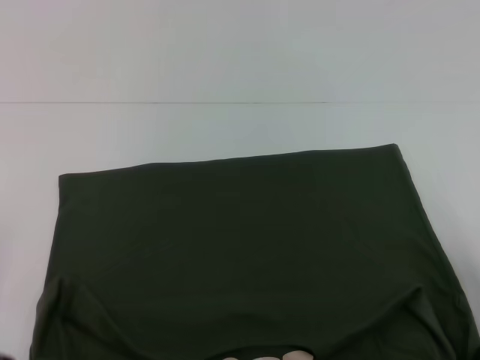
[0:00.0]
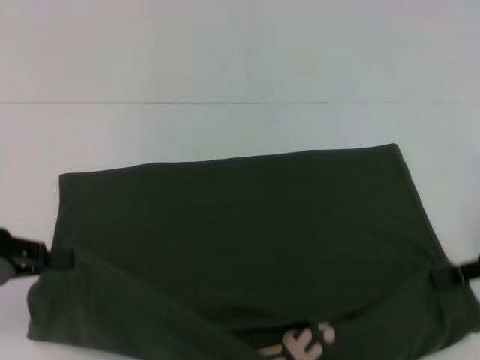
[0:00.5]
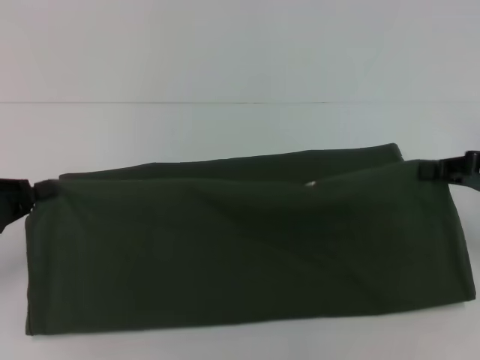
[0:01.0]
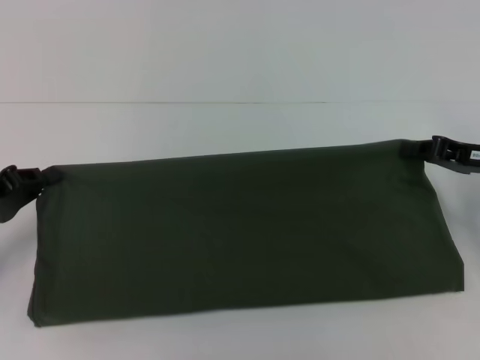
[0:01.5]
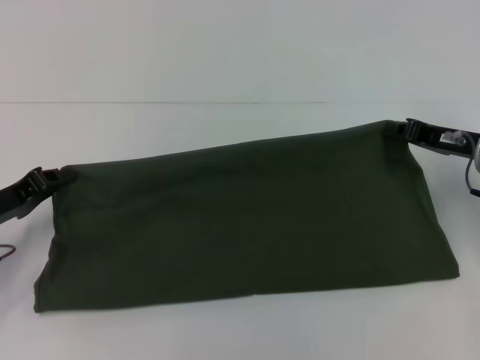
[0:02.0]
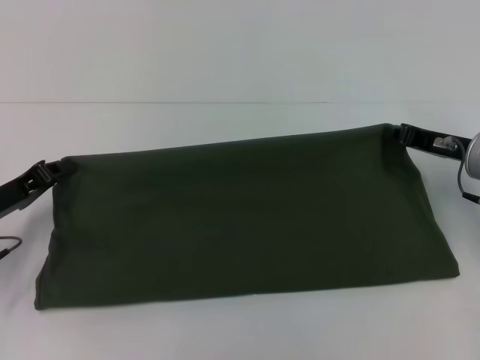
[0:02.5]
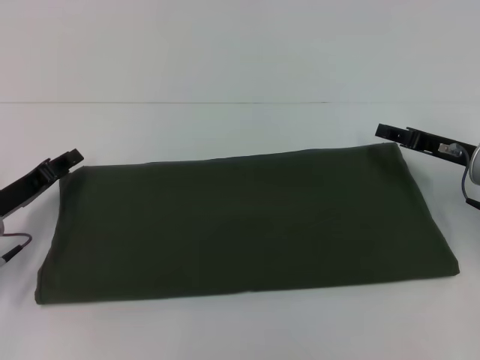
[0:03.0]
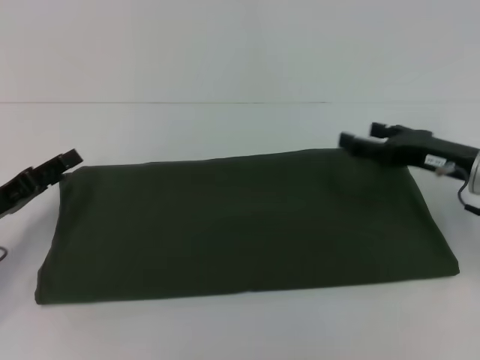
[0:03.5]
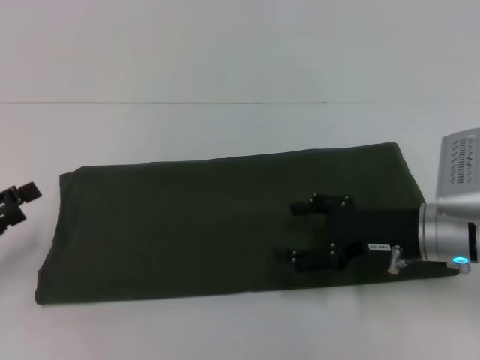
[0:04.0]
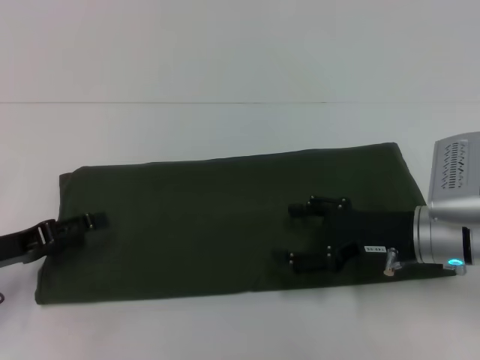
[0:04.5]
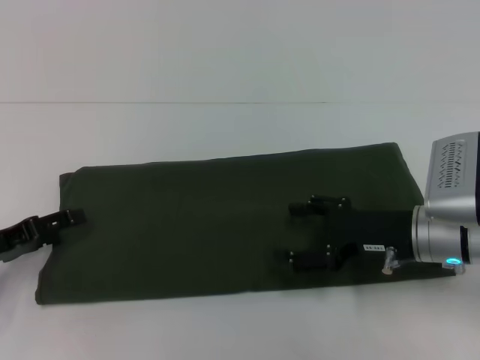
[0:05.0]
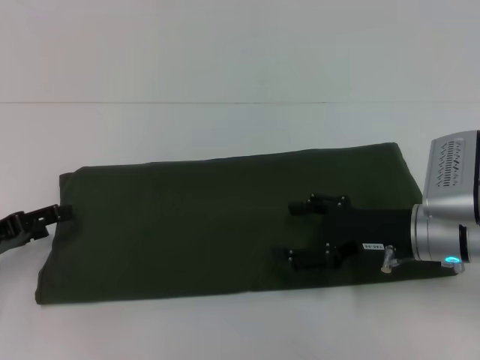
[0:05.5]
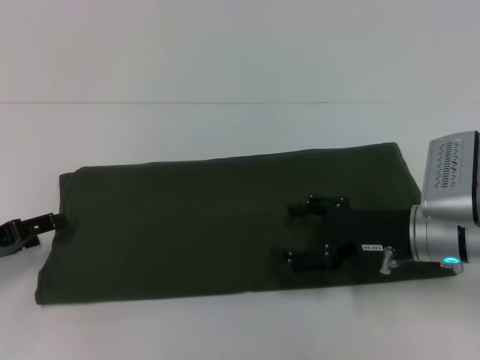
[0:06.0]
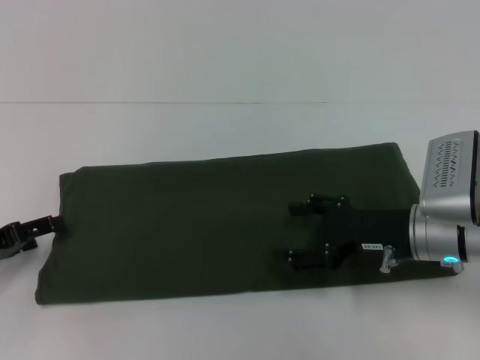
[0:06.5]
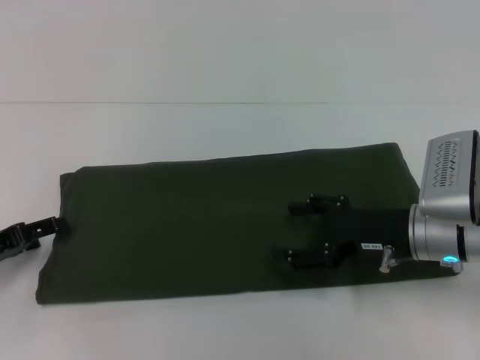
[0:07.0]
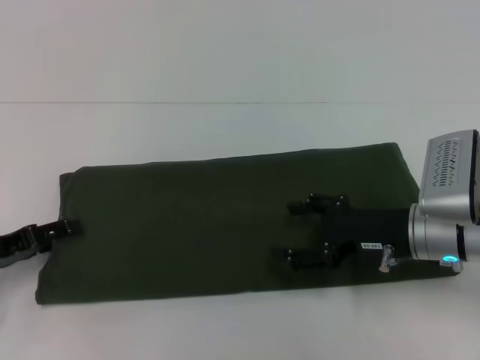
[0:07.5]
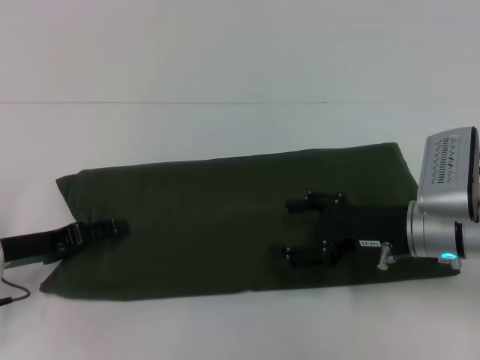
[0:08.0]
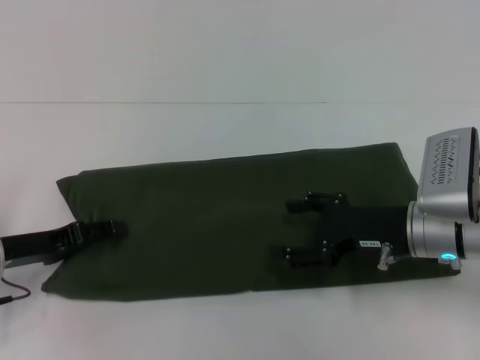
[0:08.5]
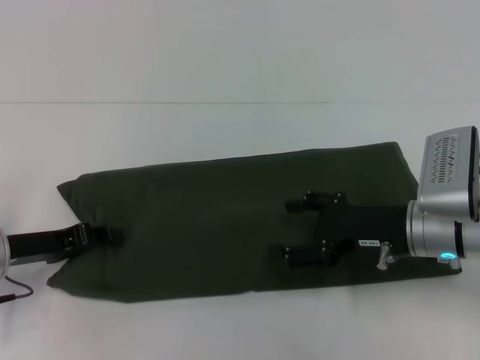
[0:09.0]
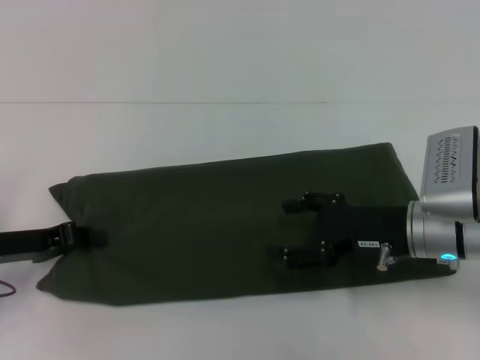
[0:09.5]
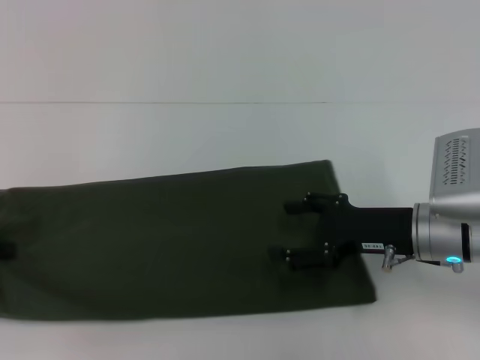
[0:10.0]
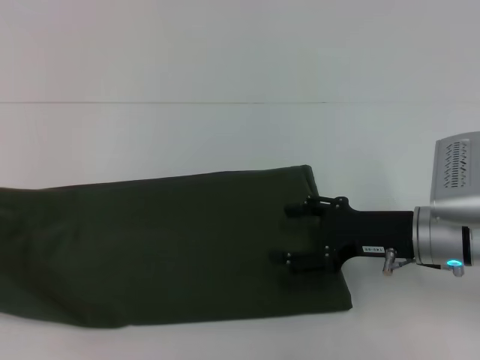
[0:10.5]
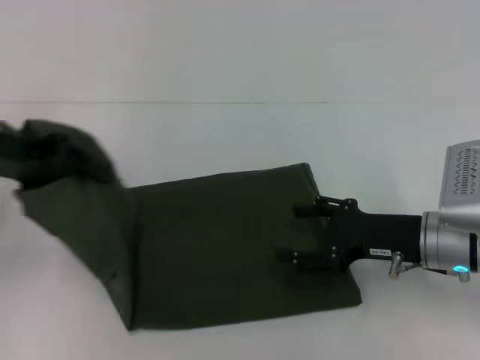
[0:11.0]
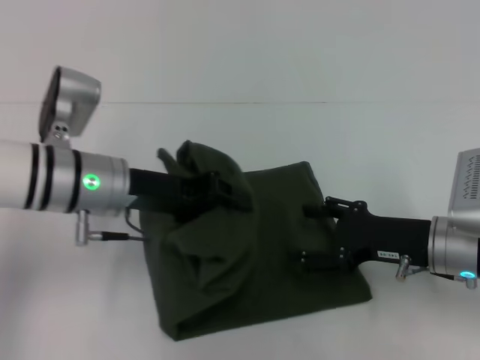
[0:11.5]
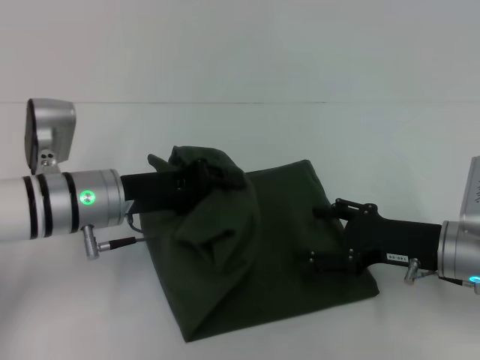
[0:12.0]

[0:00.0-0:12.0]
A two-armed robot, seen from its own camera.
Step, 0:00.0 to 0:03.0: Fold the clothes with your right hand.
0:00.0 to 0:02.0: The left gripper is displaced forward and downward by roughly 10 cm. Meanwhile the right gripper travels forward by some 10 cm.
0:02.0 to 0:04.0: The right gripper travels to the left and backward by some 10 cm, and opens up, while the left gripper heads backward, covering approximately 5 cm, and opens up.
0:04.0 to 0:06.0: There are only small adjustments of the grippers.
0:06.0 to 0:08.0: The left gripper travels to the right by about 5 cm.
0:08.0 to 0:10.0: The left gripper goes some 10 cm to the left and upward, and closes.
0:10.0 to 0:12.0: The left gripper goes some 20 cm to the right.

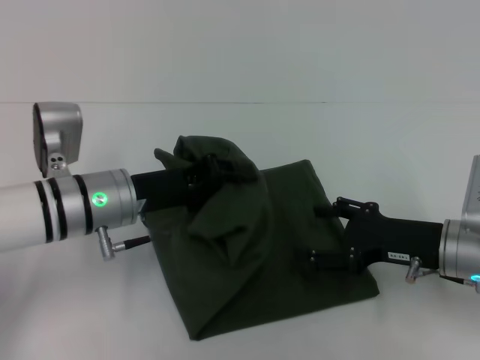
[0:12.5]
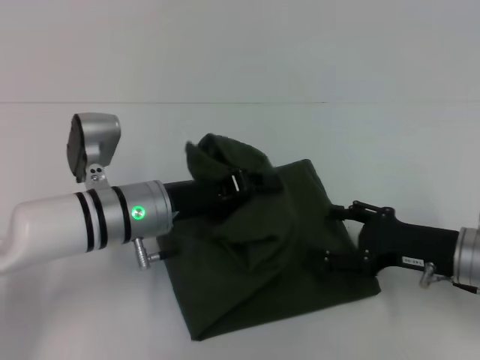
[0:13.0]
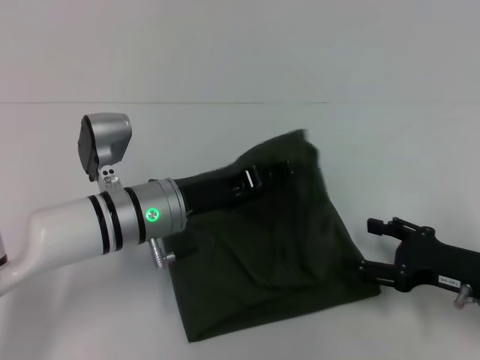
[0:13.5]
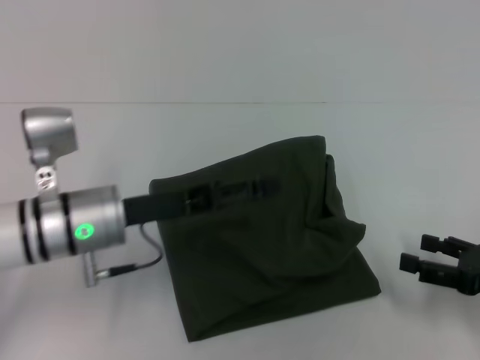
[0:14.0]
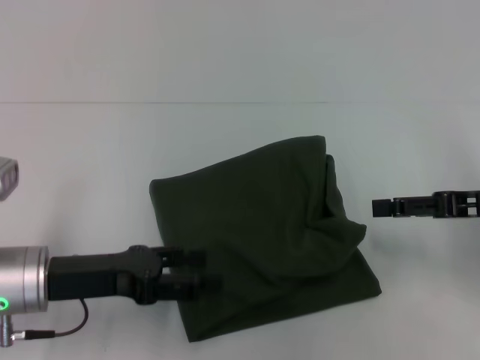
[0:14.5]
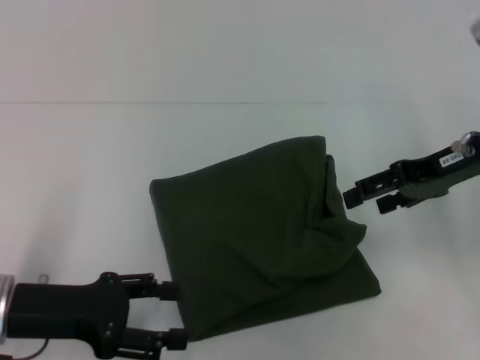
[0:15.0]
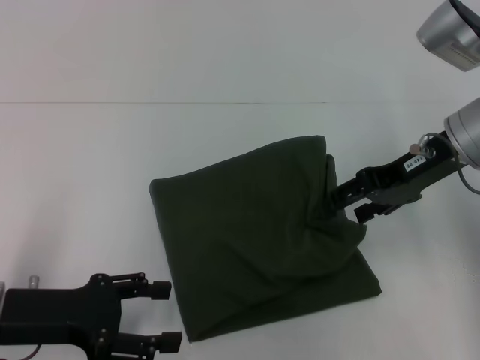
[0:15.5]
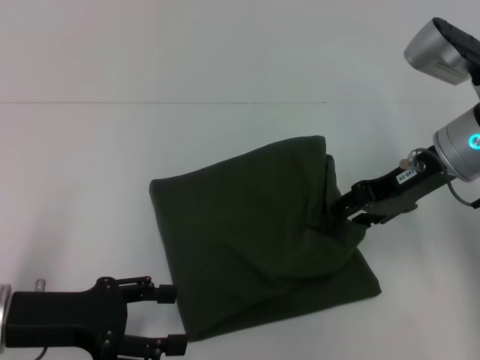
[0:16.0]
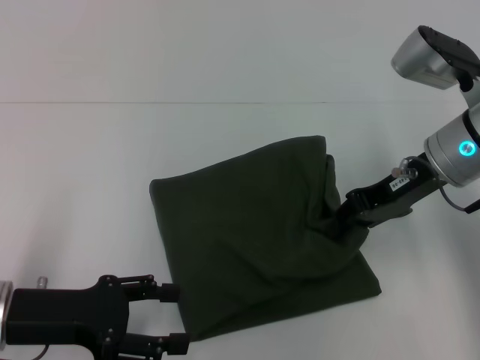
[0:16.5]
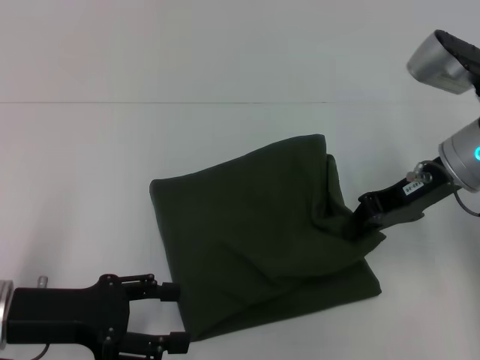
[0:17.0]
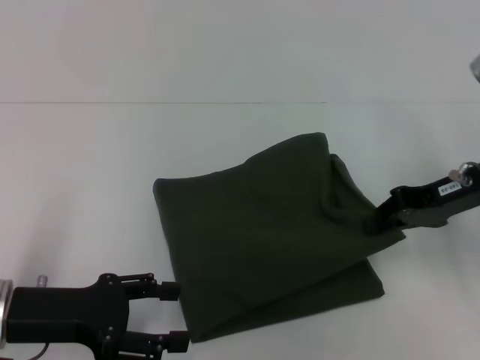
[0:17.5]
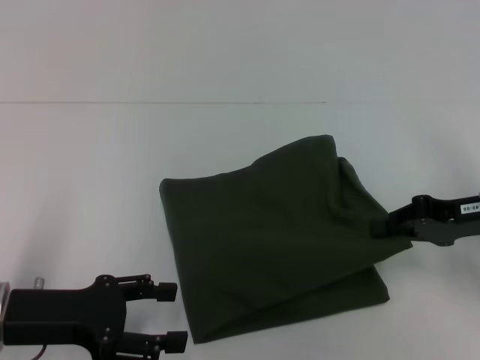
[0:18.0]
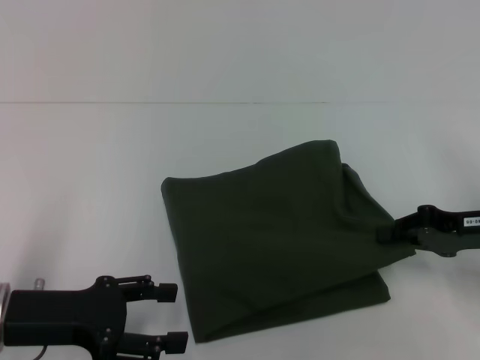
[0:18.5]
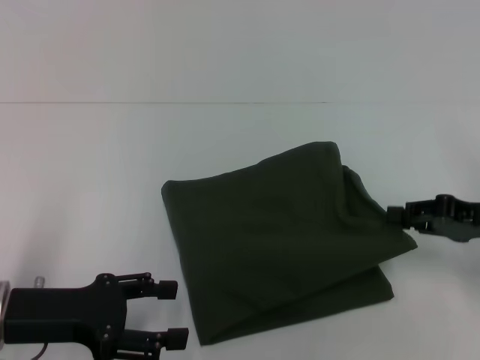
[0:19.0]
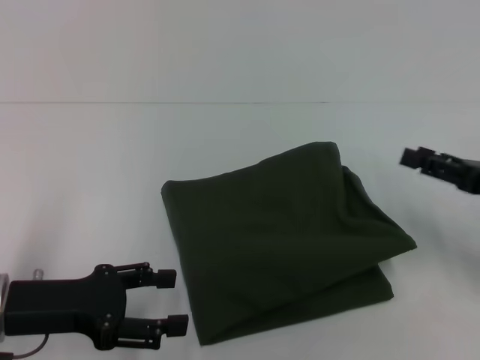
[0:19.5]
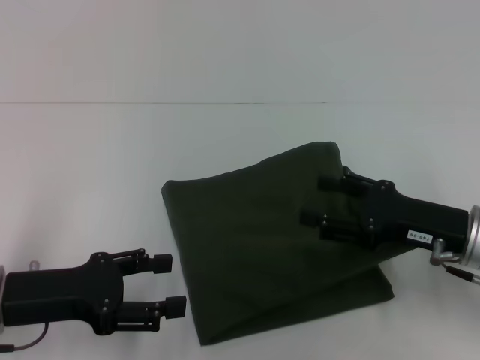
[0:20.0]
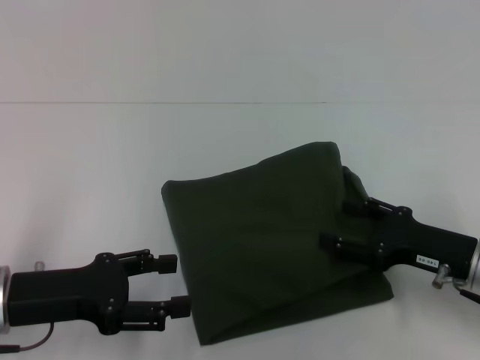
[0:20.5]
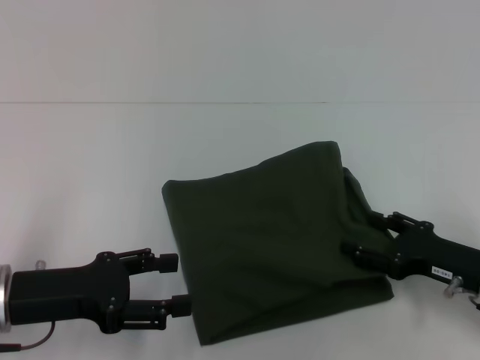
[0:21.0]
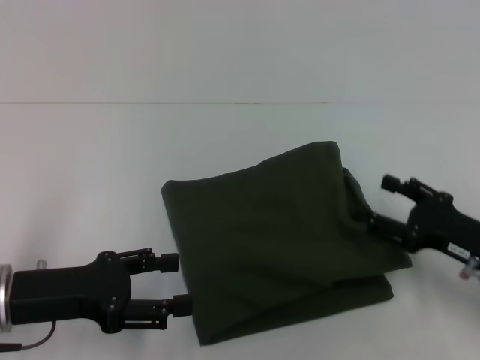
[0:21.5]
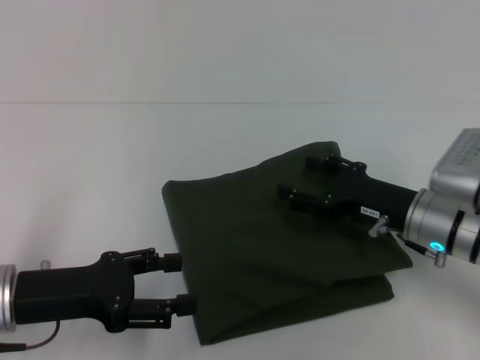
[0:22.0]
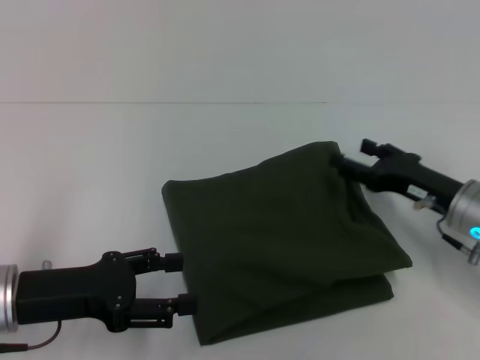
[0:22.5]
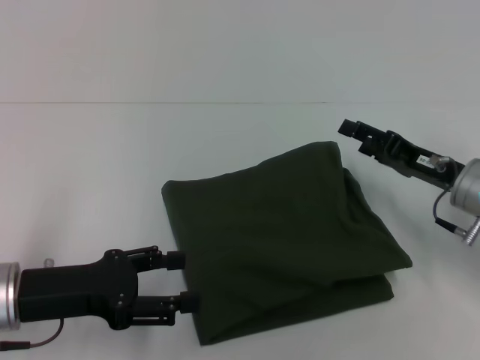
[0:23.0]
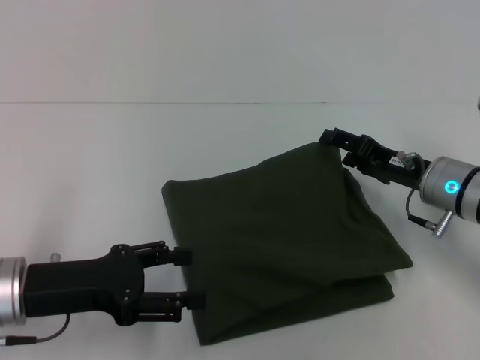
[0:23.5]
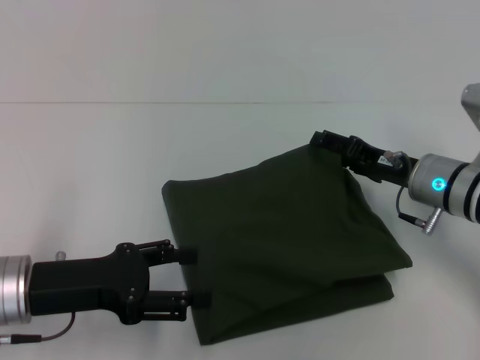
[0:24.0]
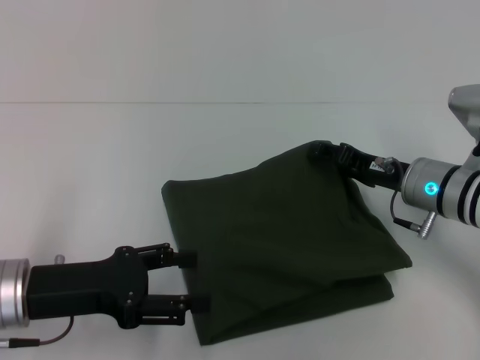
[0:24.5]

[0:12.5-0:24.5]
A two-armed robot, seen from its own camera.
0:12.5 to 0:14.5: The left gripper heads backward and to the left, covering some 10 cm, and opens its fingers; the right gripper is displaced upward and to the right by roughly 10 cm.
0:14.5 to 0:16.5: The right gripper heads to the left and forward, covering approximately 10 cm, and closes.
0:16.5 to 0:18.5: The right gripper moves to the right, downward and backward, about 15 cm, and closes up.
0:18.5 to 0:20.5: The right gripper ends up about 5 cm from where it was, and opens.
0:20.5 to 0:22.5: The right gripper is displaced forward by approximately 5 cm, and moves some 5 cm to the left and comes back.
0:22.5 to 0:24.5: The right gripper moves roughly 5 cm.

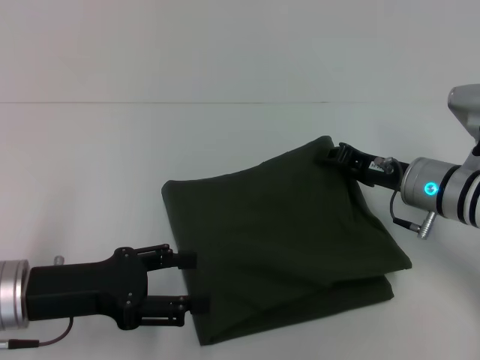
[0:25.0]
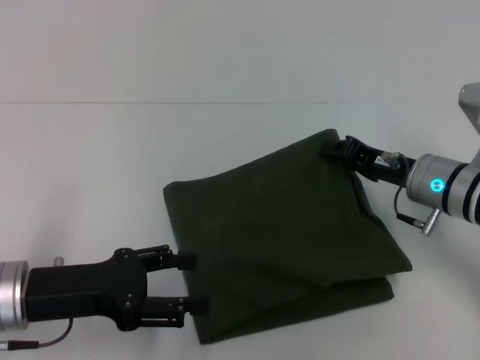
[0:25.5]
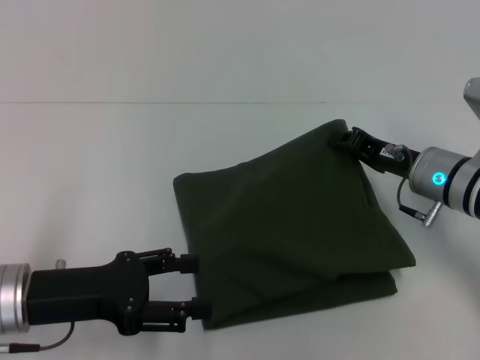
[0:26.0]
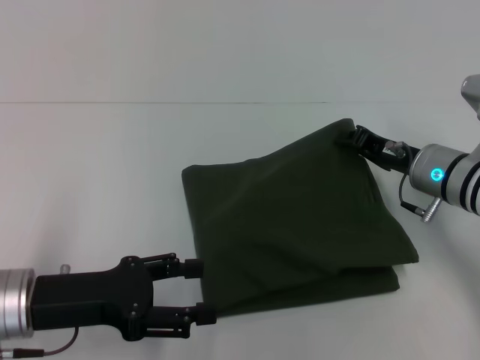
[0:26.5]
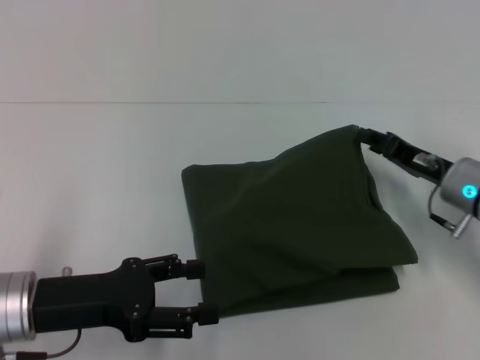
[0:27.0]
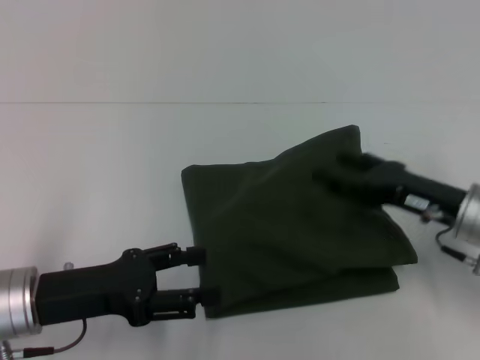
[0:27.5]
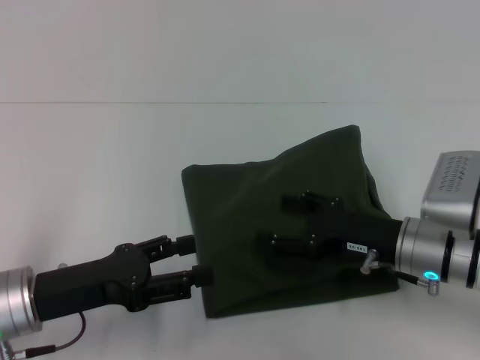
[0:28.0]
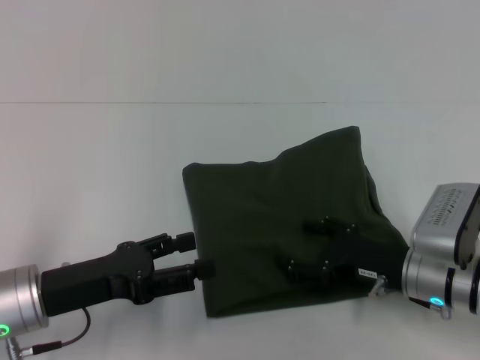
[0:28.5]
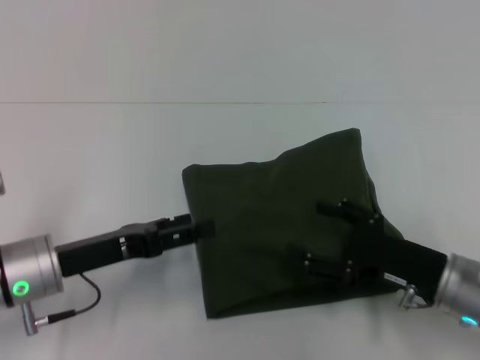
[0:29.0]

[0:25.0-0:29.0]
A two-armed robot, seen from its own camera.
0:25.0 to 0:27.0: The grippers move only a little.
0:27.0 to 0:29.0: The right gripper heads backward, covering about 10 cm, and opens.
